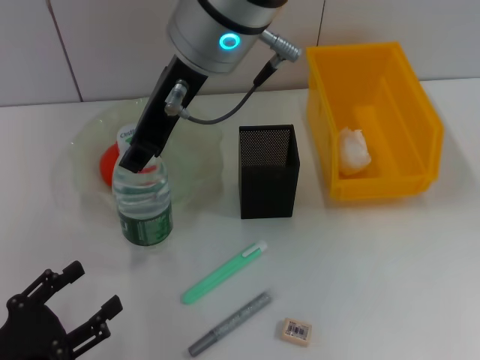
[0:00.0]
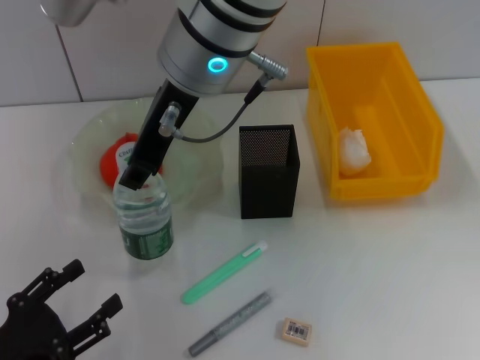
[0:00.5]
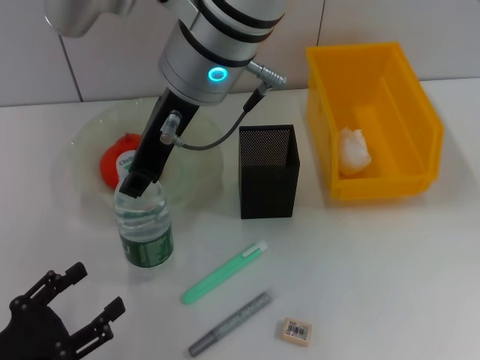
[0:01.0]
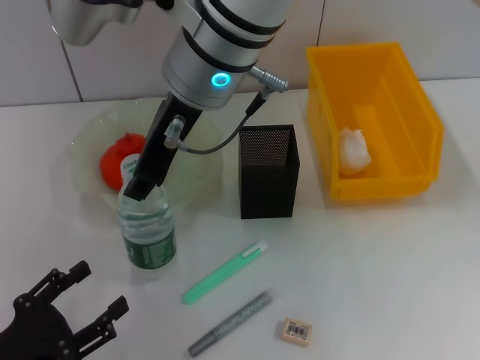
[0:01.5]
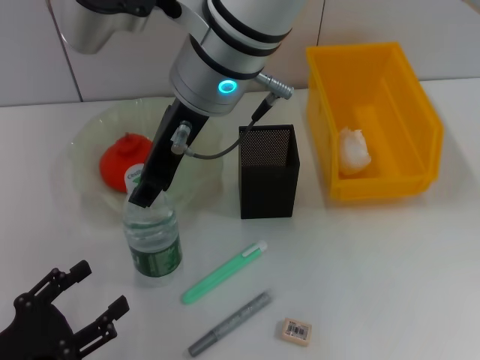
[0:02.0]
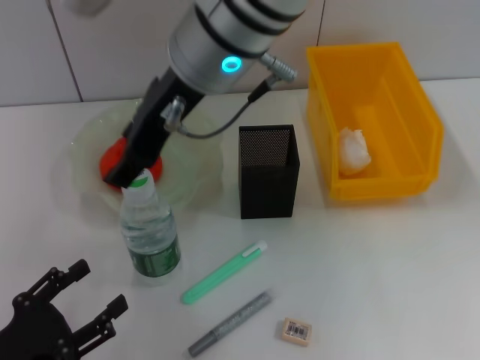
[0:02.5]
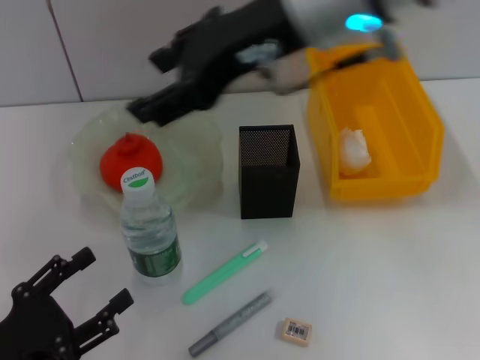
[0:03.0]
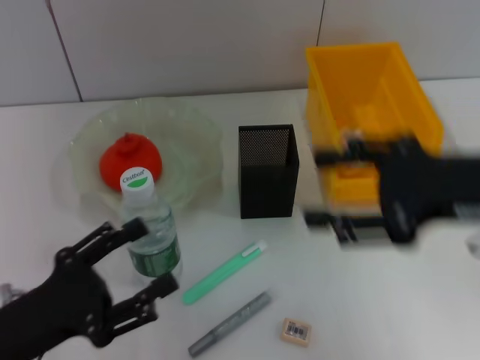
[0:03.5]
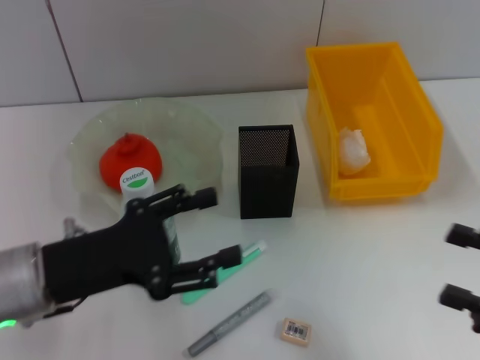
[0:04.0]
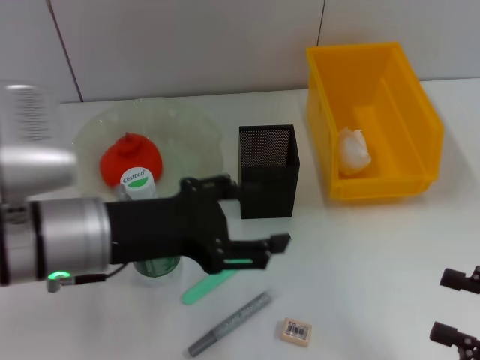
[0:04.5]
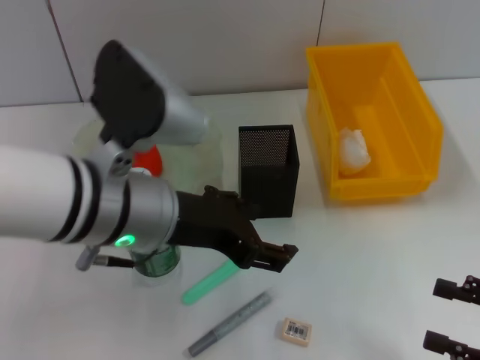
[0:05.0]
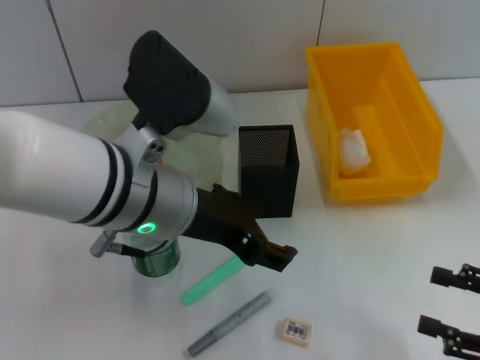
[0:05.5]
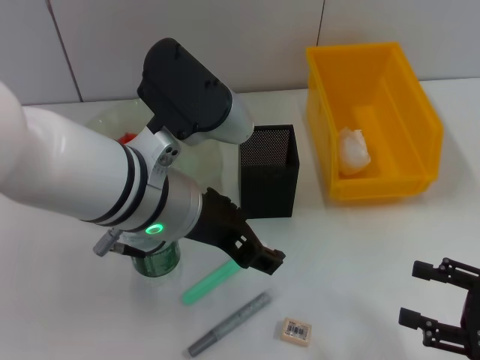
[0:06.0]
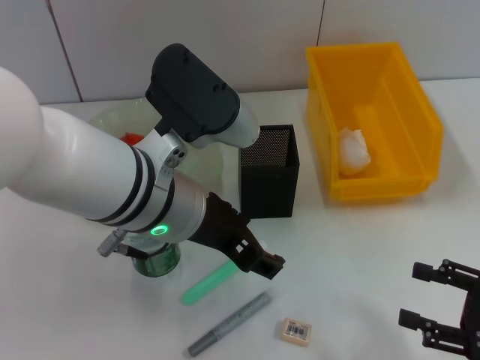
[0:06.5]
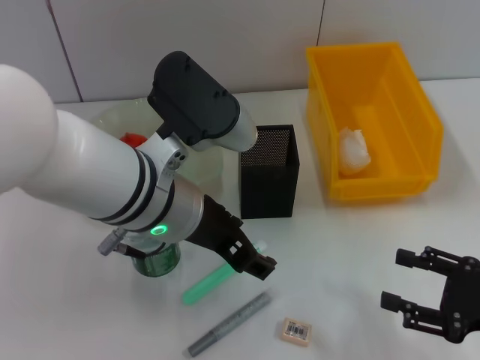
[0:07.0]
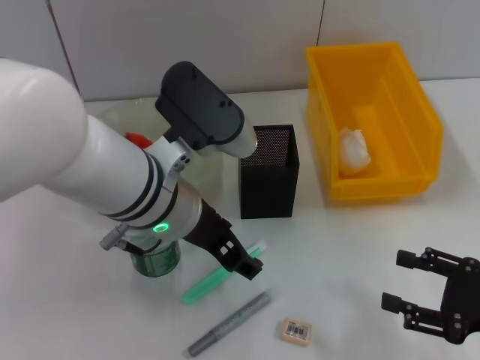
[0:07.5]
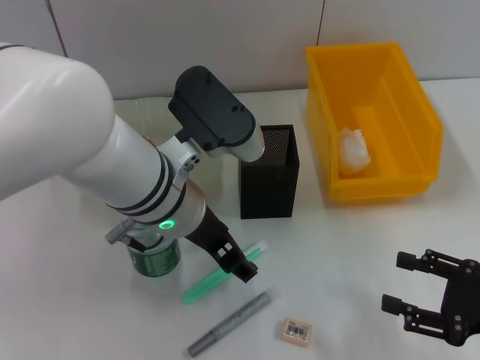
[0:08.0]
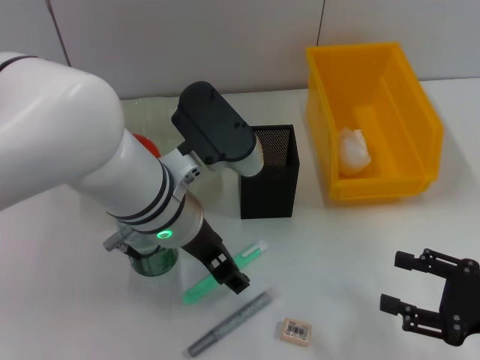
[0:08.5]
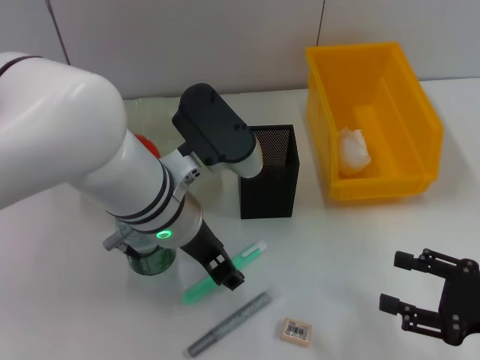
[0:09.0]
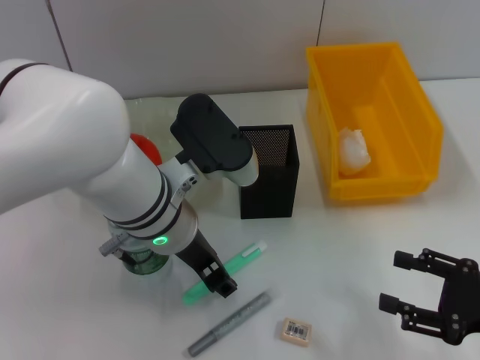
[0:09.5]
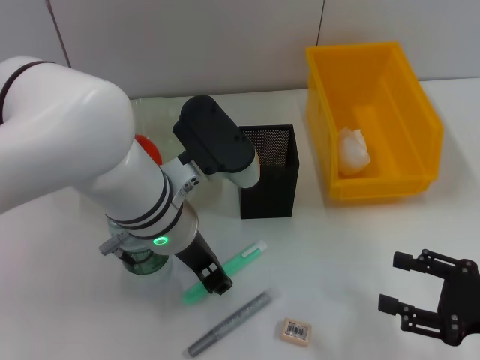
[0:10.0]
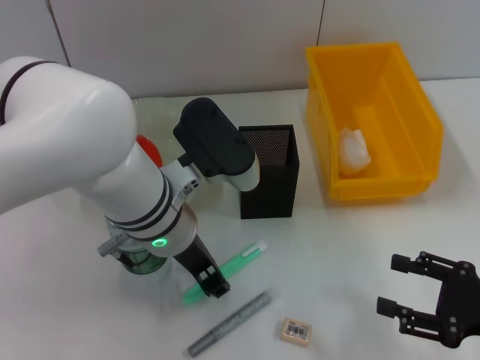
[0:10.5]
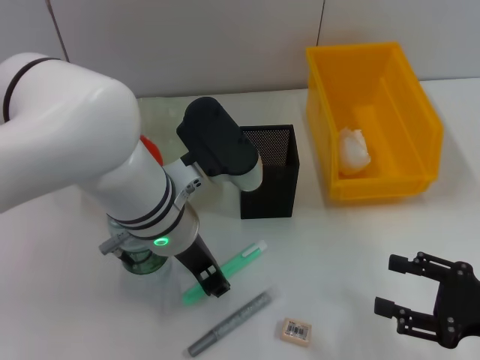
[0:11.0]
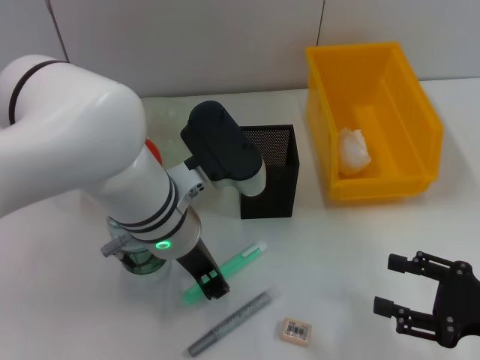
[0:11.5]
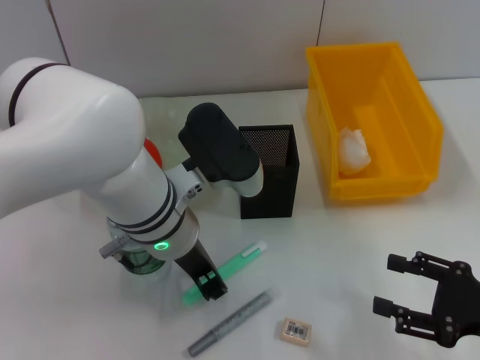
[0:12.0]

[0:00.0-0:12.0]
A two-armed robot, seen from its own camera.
Step, 0:00.0 to 0:02.0: Place the water bottle on the table with the right hand.
0:00.0 to 0:02.0: The grippers move only a little.
0:02.0 to 0:04.0: The right gripper is displaced to the right, backward and downward by roughly 40 cm, and opens. Meanwhile the left gripper travels upward, forward and to the right by about 15 cm.
0:04.0 to 0:06.0: The left gripper is displaced to the right and upward by some 15 cm, while the right gripper shifts some 5 cm downward.
0:06.0 to 0:08.0: The grippers stay close to where they were, moving slightly.
0:08.0 to 0:10.0: The grippers move only a little.
0:10.0 to 0:12.0: Neither gripper changes place.

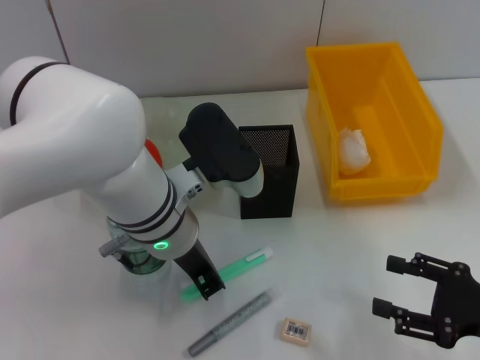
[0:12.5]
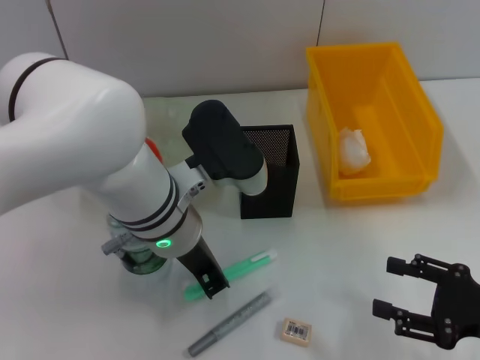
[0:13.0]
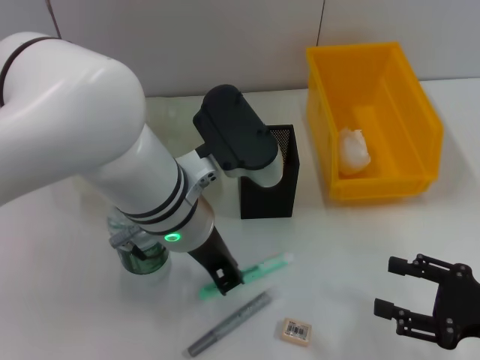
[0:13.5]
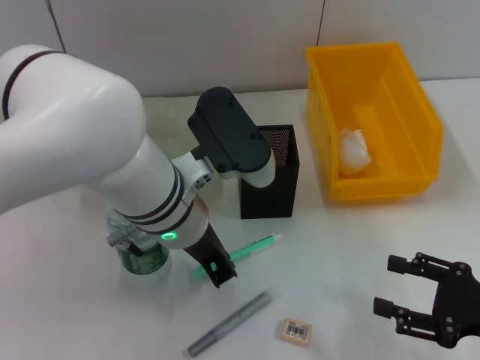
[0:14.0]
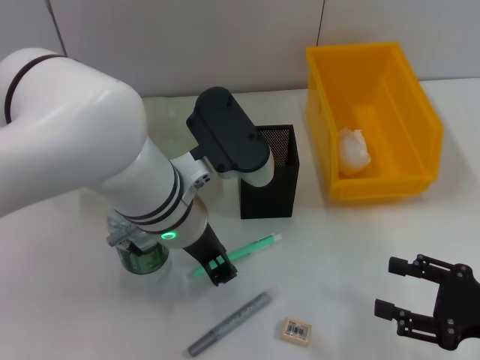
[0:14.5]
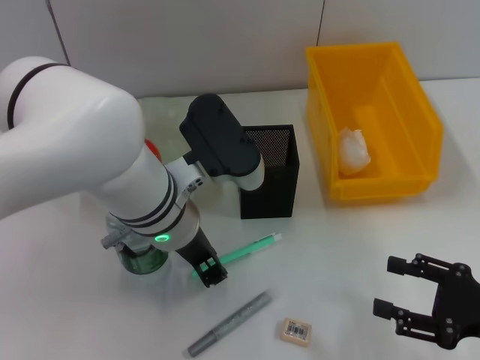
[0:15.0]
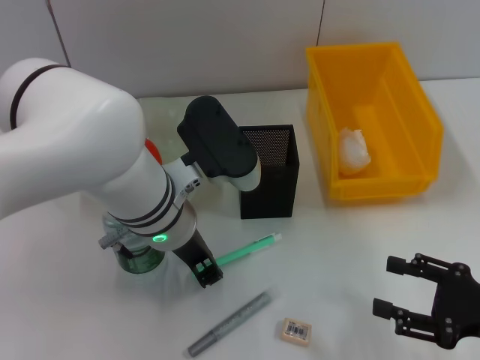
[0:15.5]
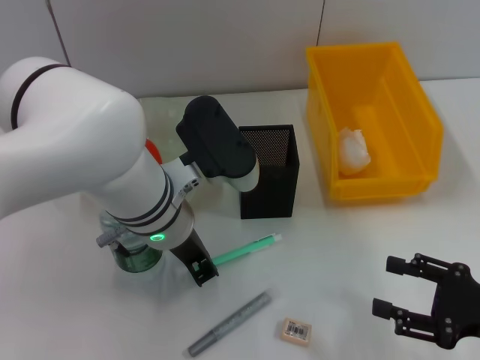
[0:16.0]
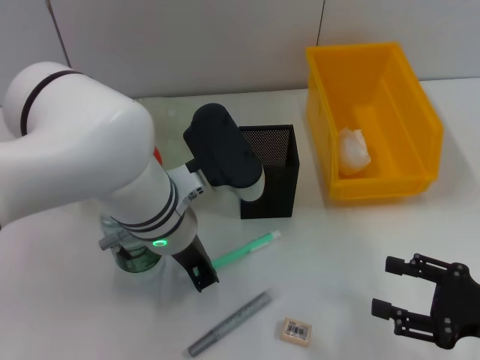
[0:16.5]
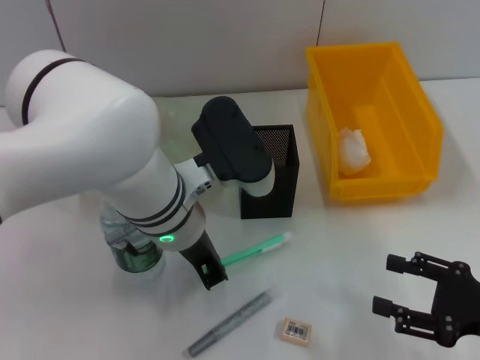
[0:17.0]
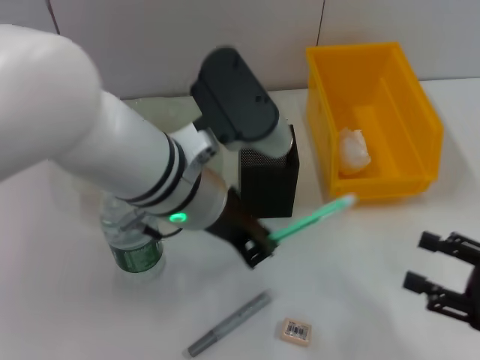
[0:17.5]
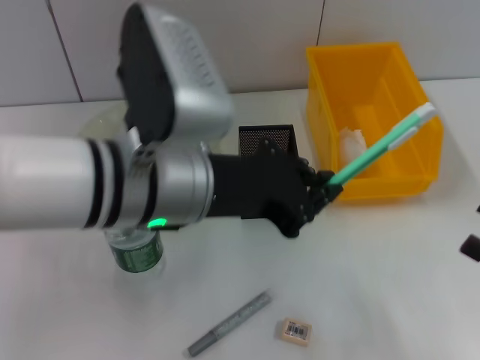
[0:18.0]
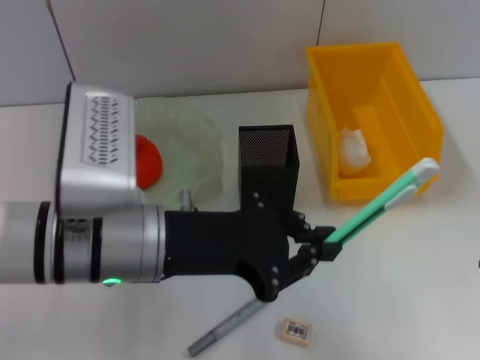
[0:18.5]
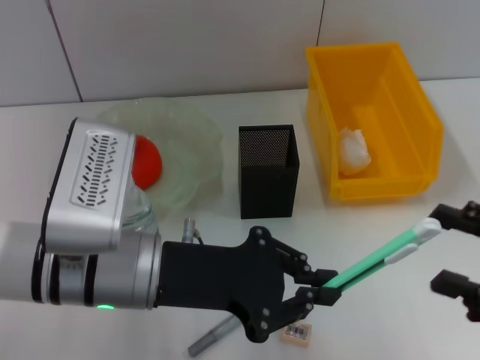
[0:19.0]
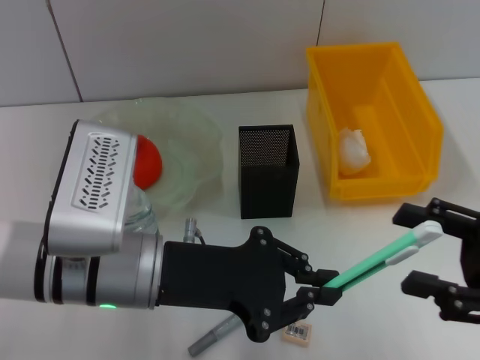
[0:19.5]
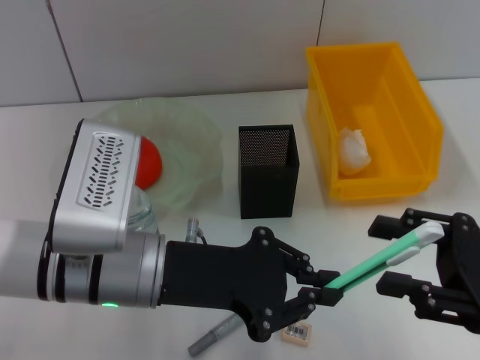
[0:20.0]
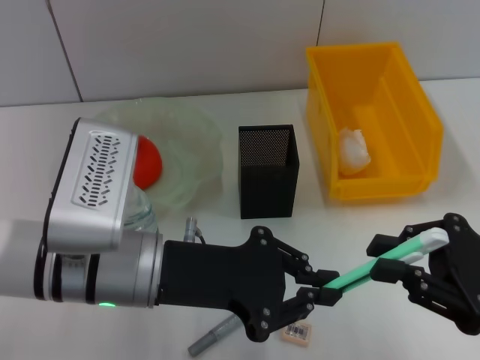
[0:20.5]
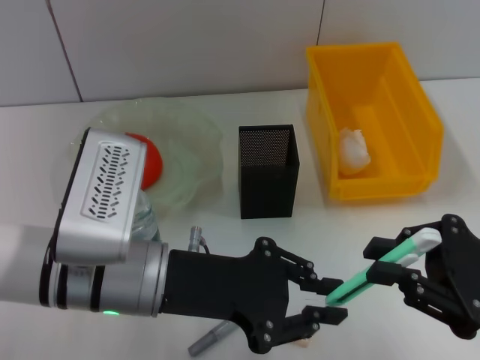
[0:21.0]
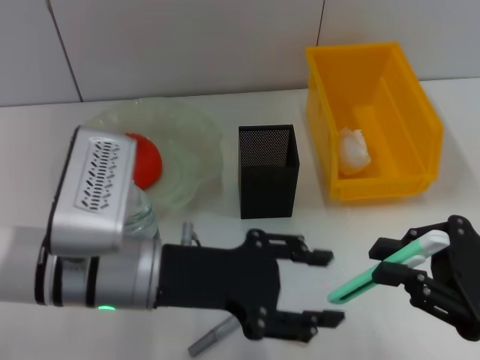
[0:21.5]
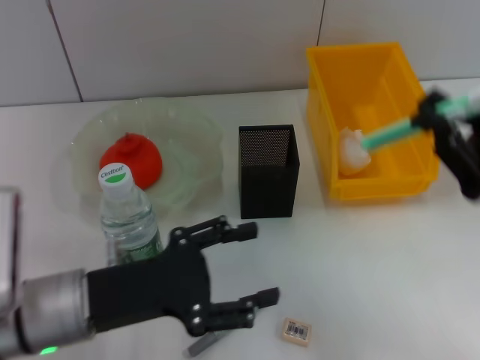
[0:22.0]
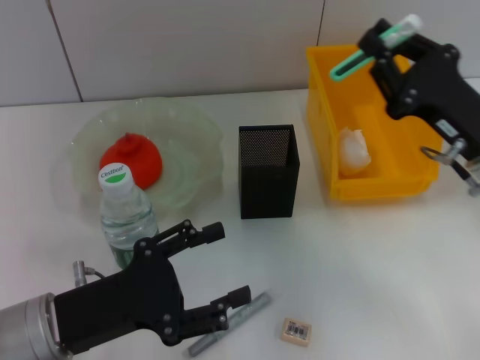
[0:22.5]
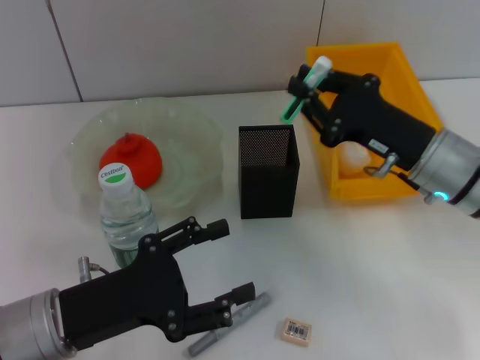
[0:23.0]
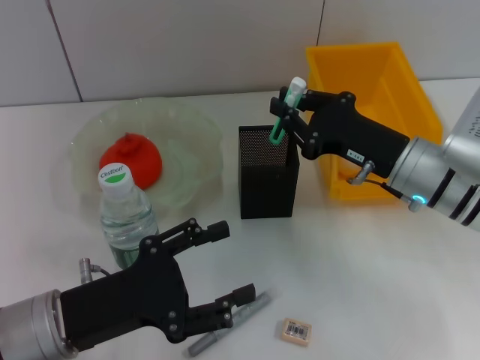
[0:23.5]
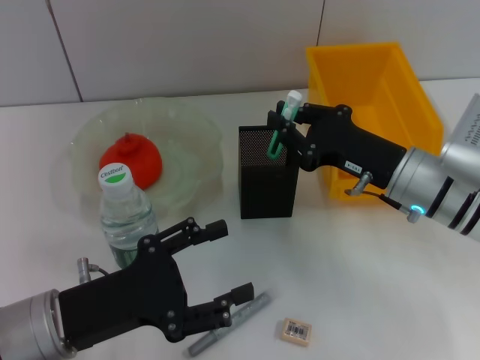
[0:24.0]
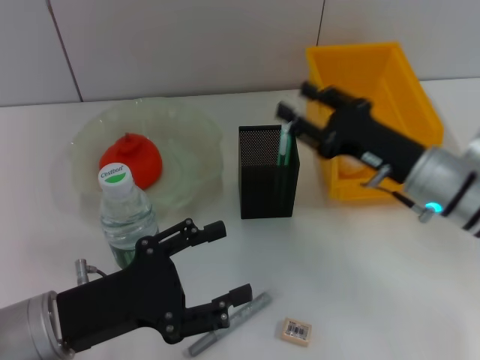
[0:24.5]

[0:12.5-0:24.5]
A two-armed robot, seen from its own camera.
Step, 0:13.0 to 0:21.5: Pass the blue utility knife from the left hand to the right hand.
Step, 0:22.0 to 0:24.0: Place the blue utility knife into the pen holder with the left hand.
0:12.5 to 0:16.5: There are only small adjustments of the grippers.
0:16.5 to 0:18.5: The right gripper shifts approximately 5 cm upward; the left gripper heads backward and to the left, covering approximately 10 cm.
0:18.5 to 0:20.5: The right gripper heads to the left and forward, covering roughly 10 cm.
0:20.5 to 0:22.5: The right gripper travels forward by approximately 10 cm; the left gripper moves to the left and downward, approximately 10 cm, and opens up.
0:22.5 to 0:24.5: The right gripper moves approximately 5 cm, and opens.

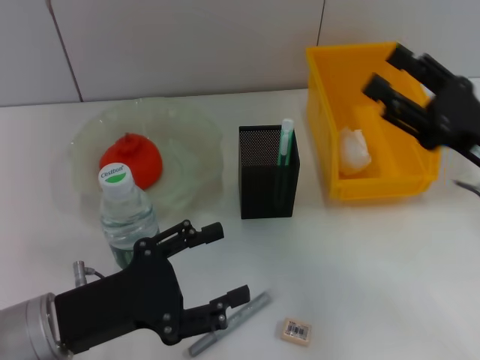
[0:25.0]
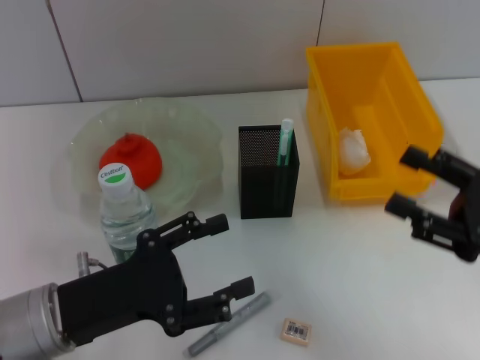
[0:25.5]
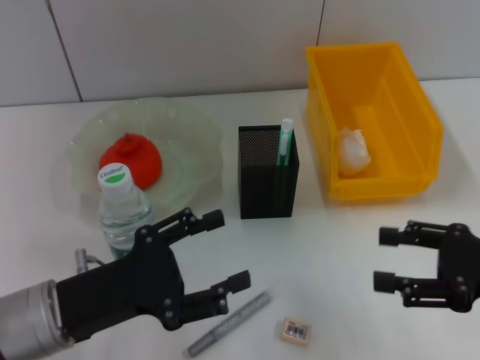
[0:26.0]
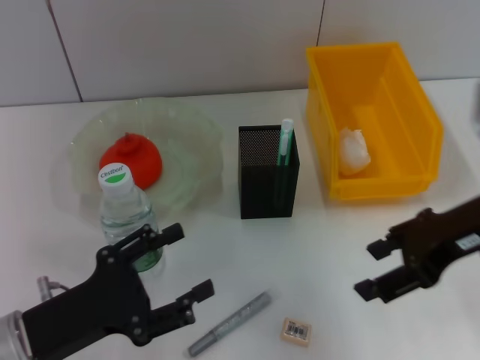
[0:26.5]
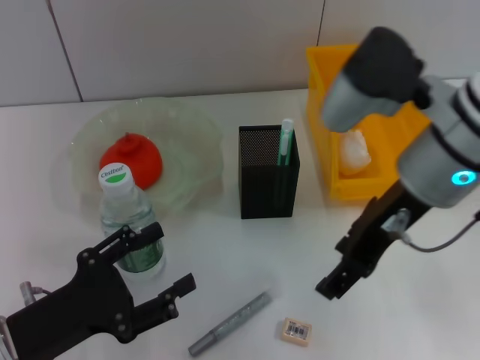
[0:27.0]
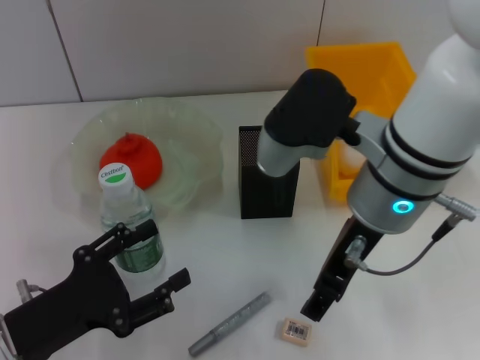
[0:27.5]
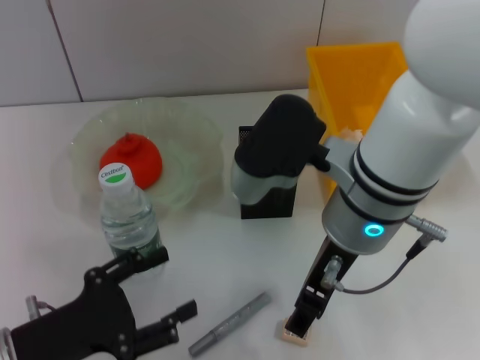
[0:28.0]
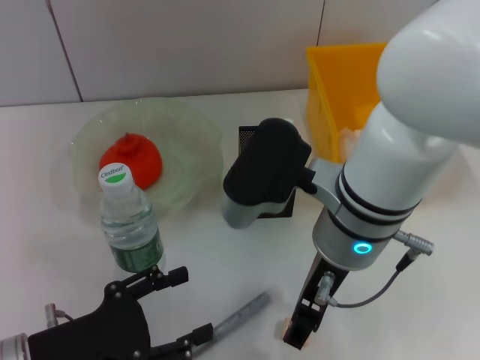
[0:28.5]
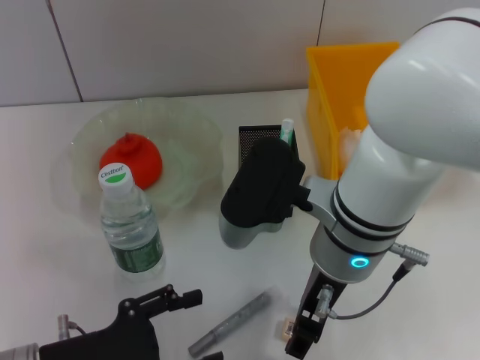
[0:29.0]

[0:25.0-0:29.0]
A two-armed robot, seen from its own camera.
0:25.0 to 0:27.0: The right gripper moves to the left and upward, approximately 15 cm.
0:27.0 to 0:29.0: The right gripper goes some 10 cm to the left and downward.
